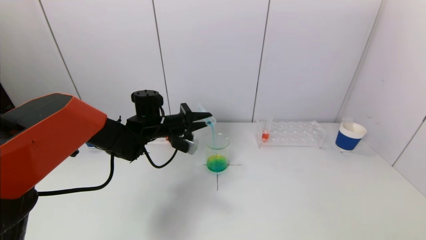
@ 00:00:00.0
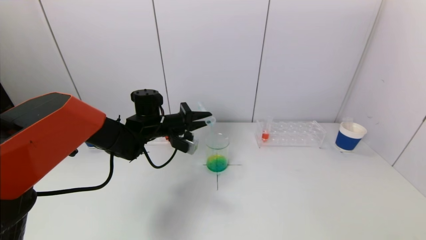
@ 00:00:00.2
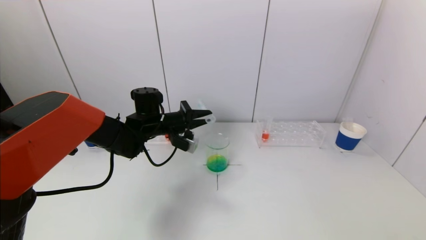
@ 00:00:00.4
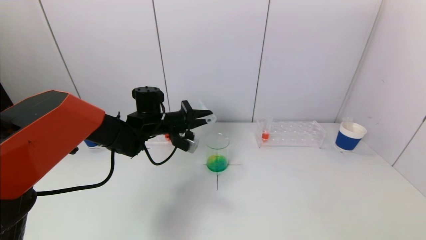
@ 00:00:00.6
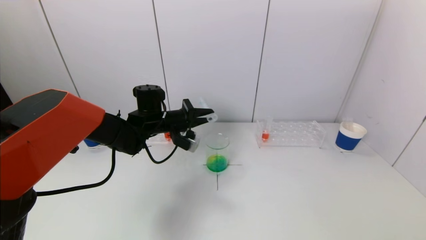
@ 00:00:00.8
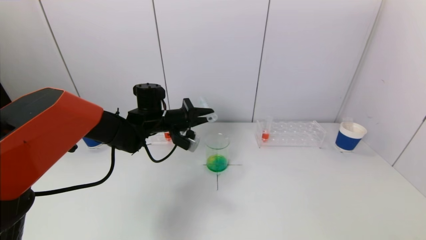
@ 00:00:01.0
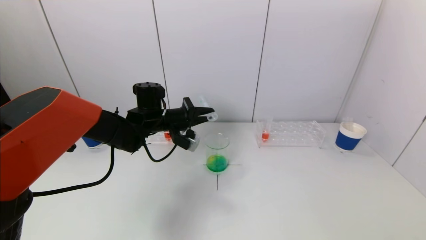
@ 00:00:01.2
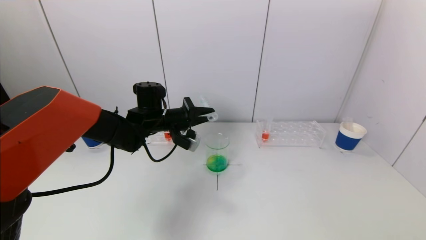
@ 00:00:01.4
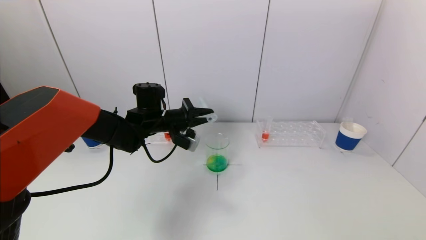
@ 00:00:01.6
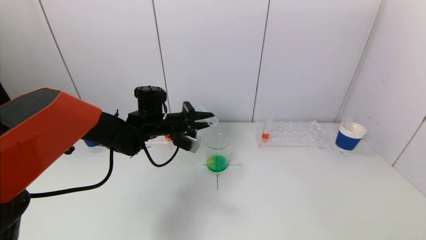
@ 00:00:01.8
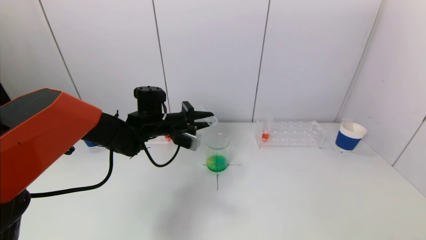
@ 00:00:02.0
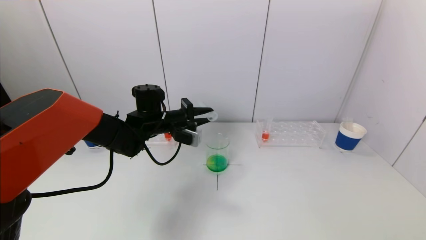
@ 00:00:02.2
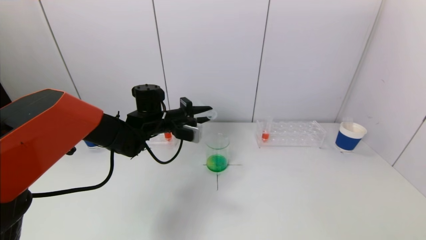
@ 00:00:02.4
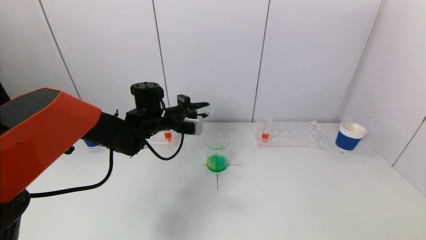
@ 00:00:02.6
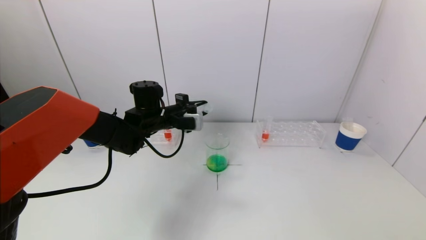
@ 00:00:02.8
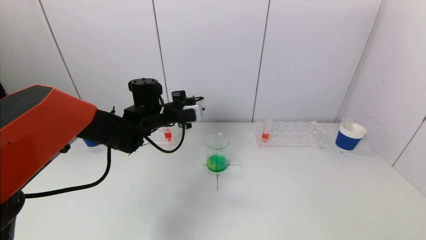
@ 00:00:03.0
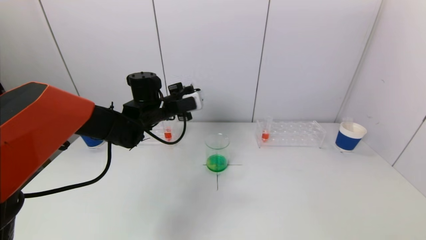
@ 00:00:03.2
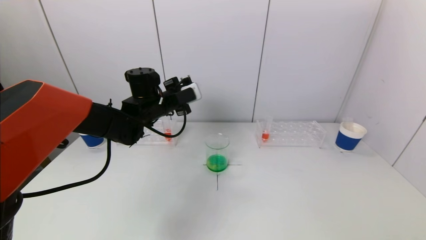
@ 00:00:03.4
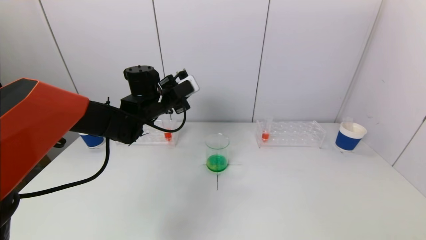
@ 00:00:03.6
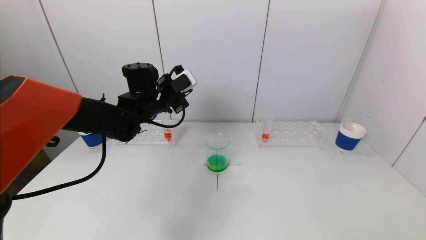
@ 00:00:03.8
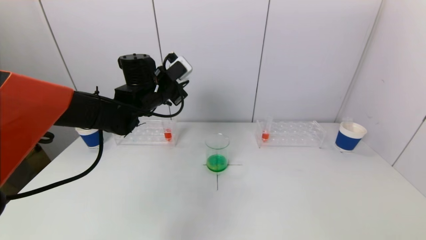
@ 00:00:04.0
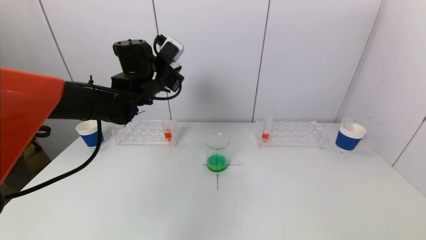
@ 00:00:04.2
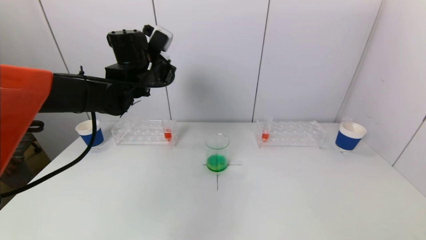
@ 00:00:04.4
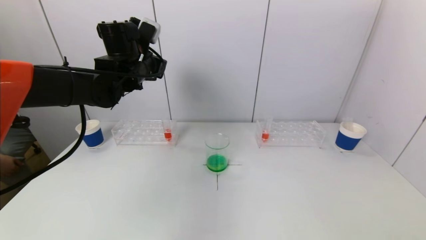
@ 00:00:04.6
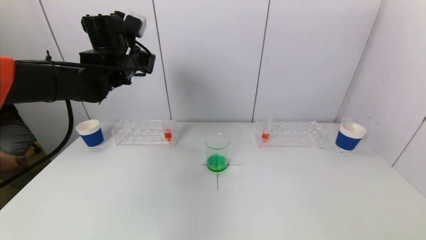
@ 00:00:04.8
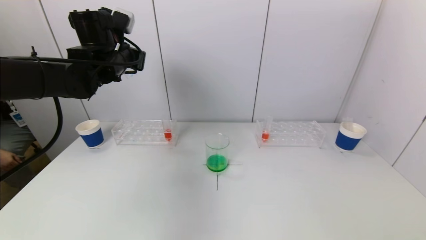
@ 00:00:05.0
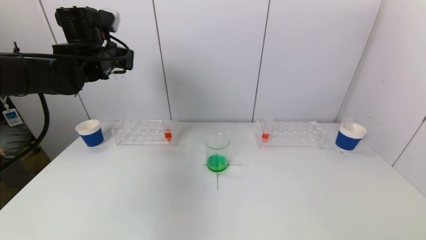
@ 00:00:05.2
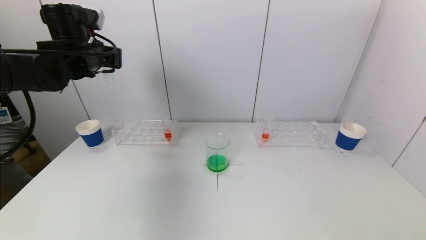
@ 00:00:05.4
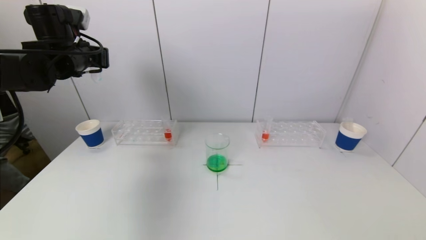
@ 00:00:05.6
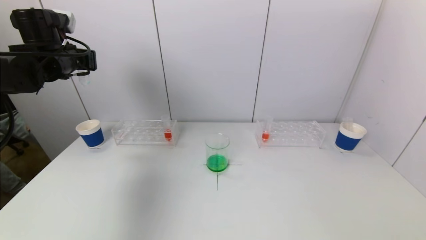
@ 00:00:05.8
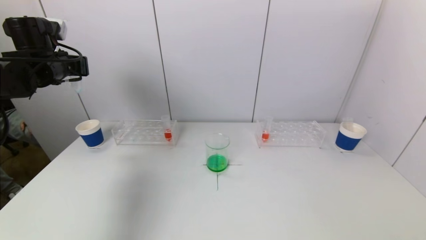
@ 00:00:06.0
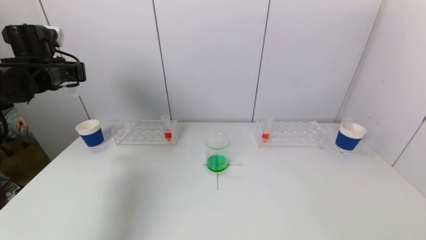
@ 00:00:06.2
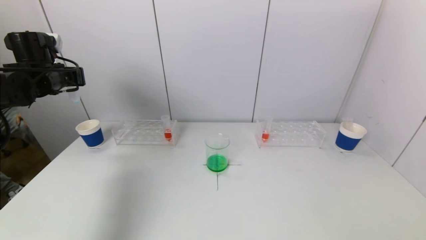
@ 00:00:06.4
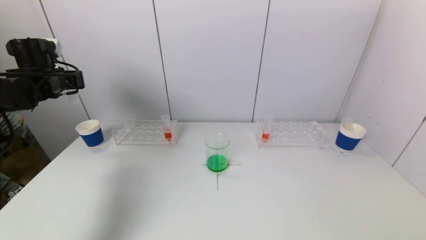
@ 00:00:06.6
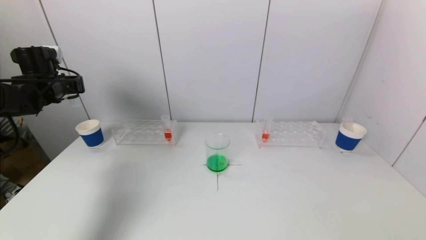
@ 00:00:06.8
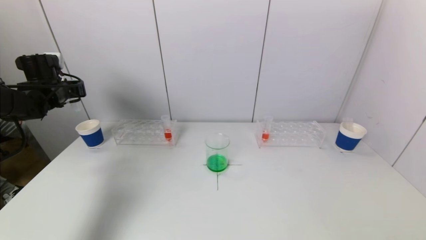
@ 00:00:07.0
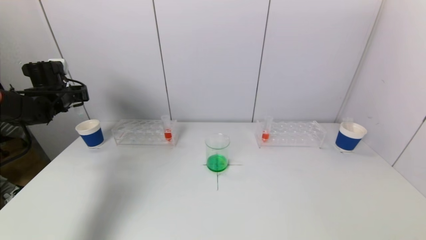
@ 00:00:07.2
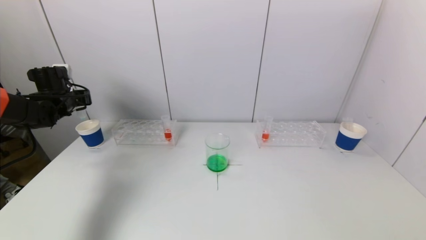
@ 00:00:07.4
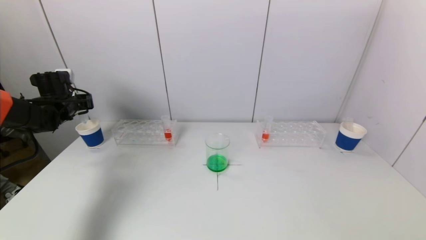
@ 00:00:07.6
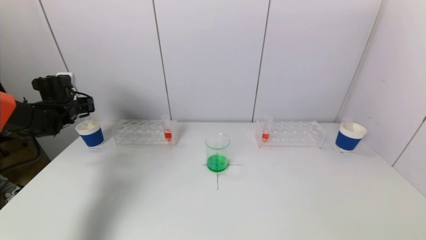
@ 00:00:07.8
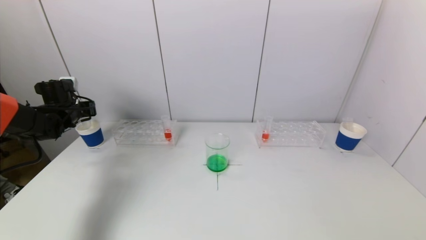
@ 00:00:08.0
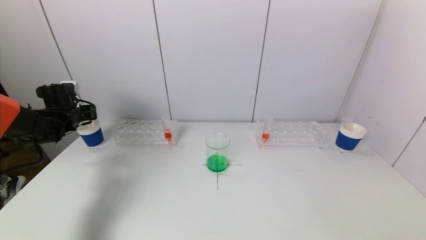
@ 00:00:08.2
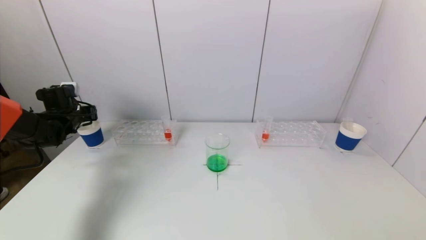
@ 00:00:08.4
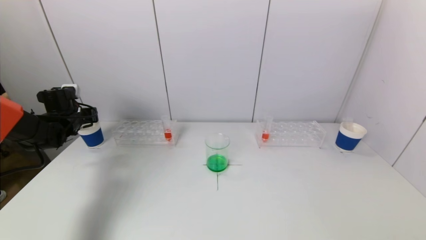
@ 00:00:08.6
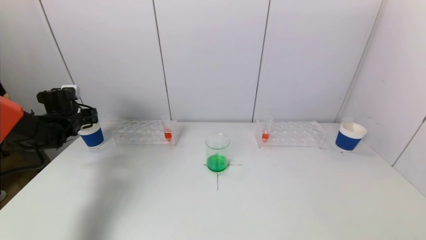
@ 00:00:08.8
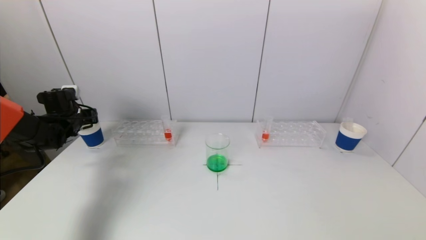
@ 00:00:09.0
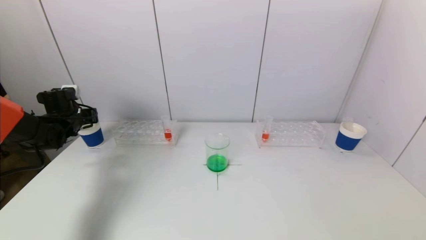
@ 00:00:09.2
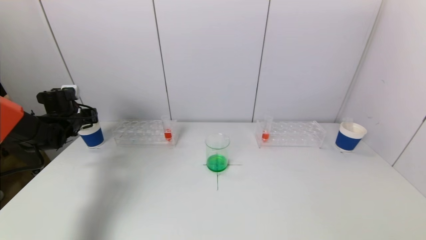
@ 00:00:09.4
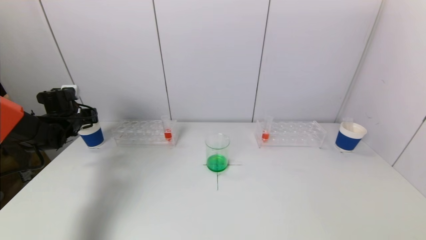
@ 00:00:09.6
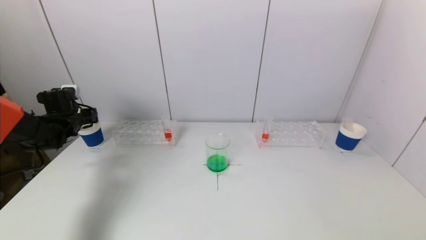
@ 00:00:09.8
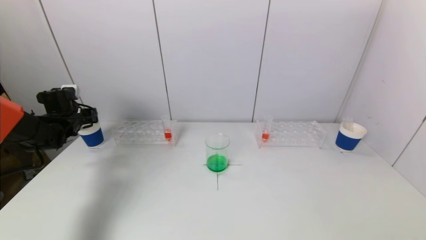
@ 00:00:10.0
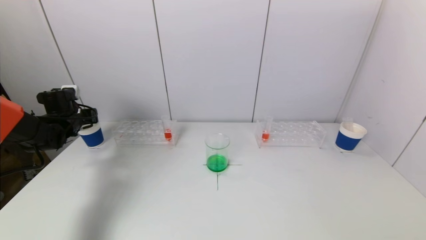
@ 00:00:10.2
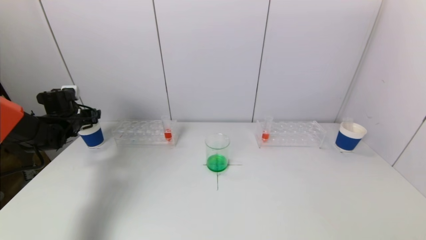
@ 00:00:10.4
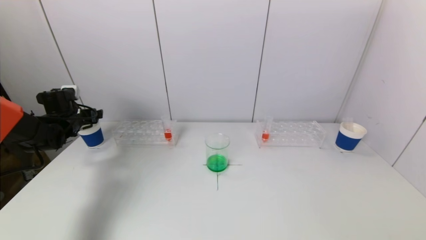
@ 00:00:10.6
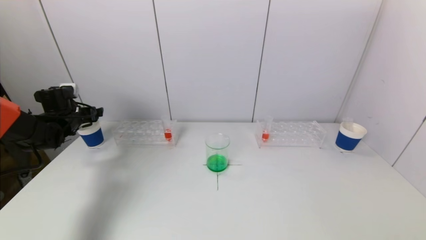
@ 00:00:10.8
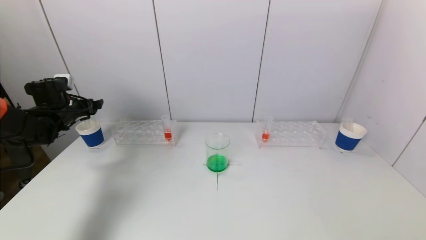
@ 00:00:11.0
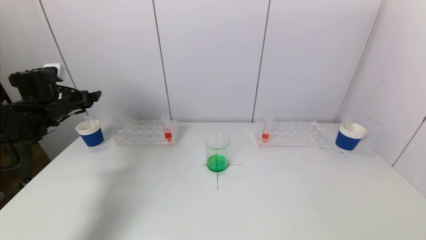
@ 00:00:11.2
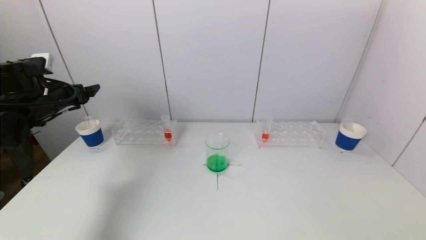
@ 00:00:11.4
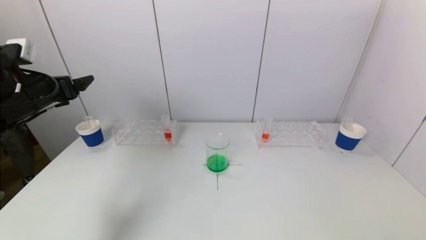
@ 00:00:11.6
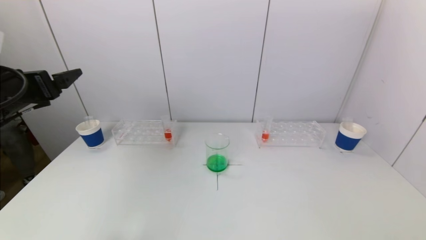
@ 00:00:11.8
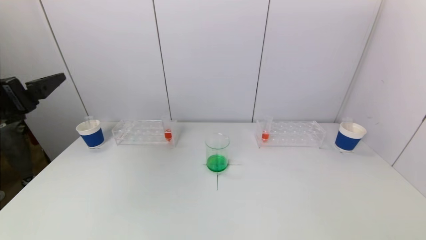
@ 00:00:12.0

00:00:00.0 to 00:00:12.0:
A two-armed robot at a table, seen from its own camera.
Task of the whole recording: pick up a test tube with pigment on left test tube rack and a test tube with pigment on right test tube rack by grippers and pour them into the beaker.
Step, 00:00:01.0 to 00:00:10.2: Place the test tube into the paper cup with the left gripper.
00:00:00.0 to 00:00:01.6: The grippers make only small movements.
00:00:03.0 to 00:00:04.4: The left gripper moves upward, some 10 cm.
00:00:04.4 to 00:00:06.0: The left gripper travels to the left by some 20 cm.
00:00:06.0 to 00:00:07.6: The left gripper moves downward, to the left and forward, approximately 15 cm.
00:00:07.6 to 00:00:09.0: The grippers stay close to where they were, moving slightly.
00:00:10.4 to 00:00:12.0: The left gripper heads backward and upward, covering about 30 cm.

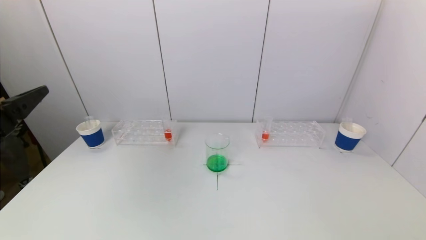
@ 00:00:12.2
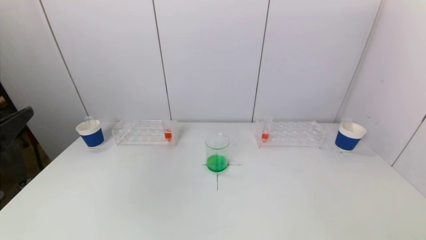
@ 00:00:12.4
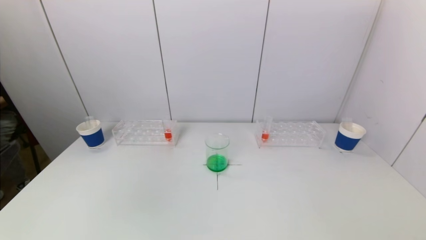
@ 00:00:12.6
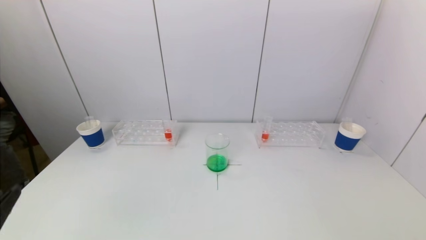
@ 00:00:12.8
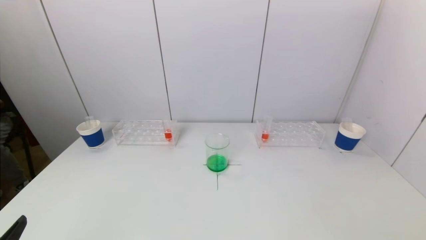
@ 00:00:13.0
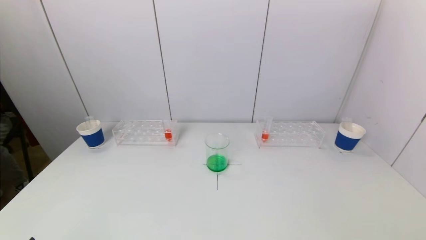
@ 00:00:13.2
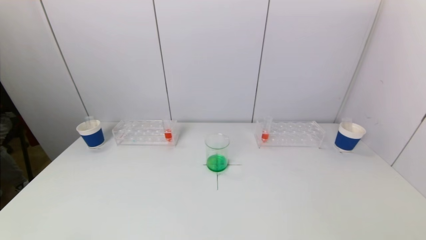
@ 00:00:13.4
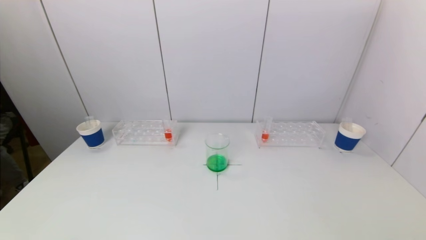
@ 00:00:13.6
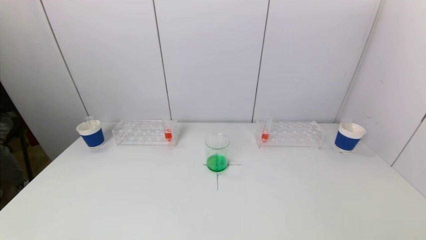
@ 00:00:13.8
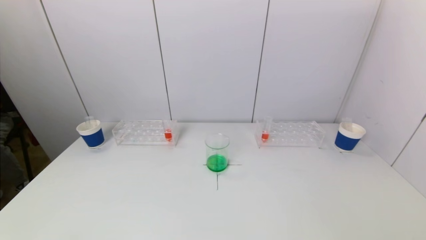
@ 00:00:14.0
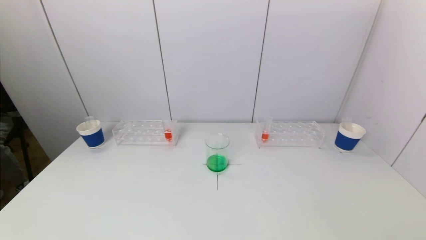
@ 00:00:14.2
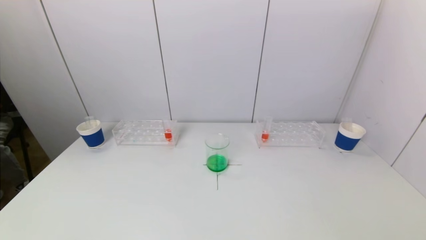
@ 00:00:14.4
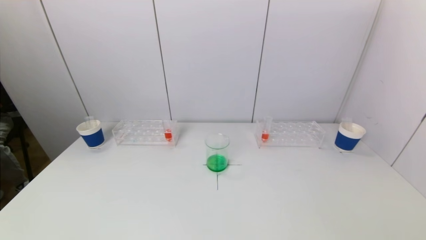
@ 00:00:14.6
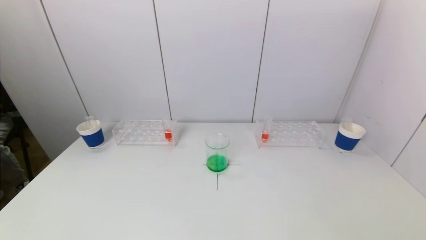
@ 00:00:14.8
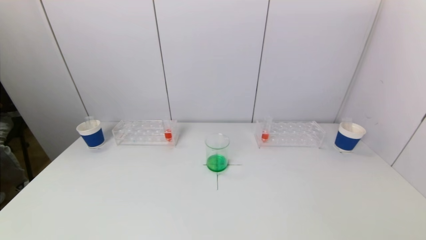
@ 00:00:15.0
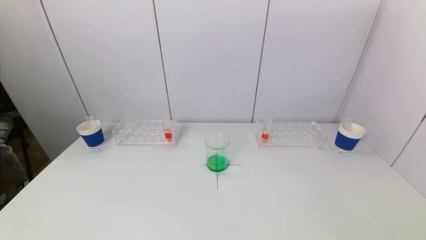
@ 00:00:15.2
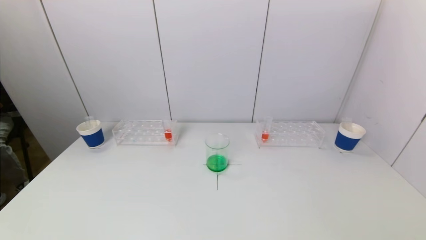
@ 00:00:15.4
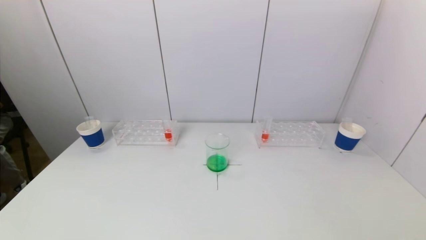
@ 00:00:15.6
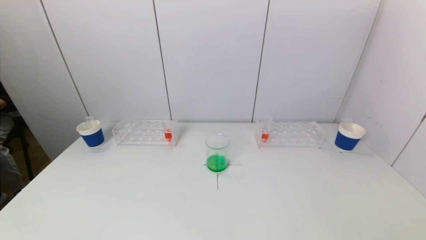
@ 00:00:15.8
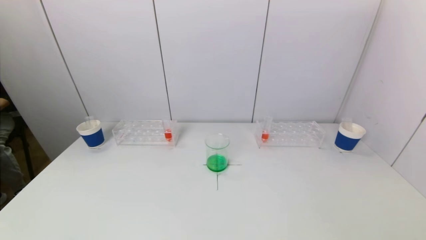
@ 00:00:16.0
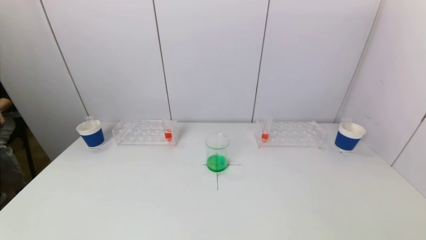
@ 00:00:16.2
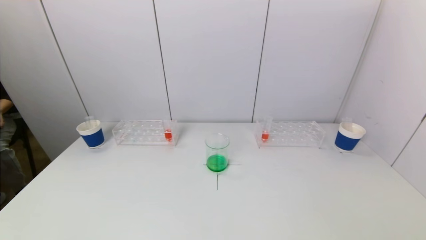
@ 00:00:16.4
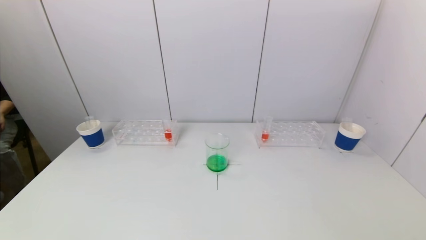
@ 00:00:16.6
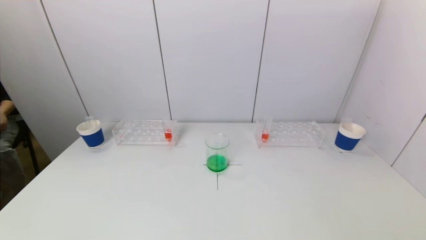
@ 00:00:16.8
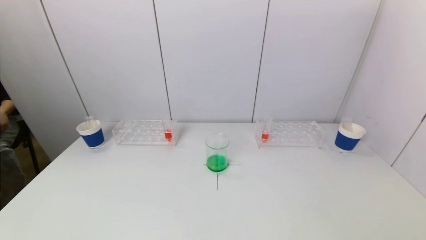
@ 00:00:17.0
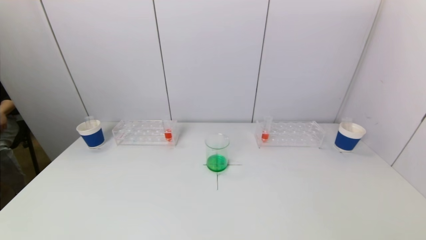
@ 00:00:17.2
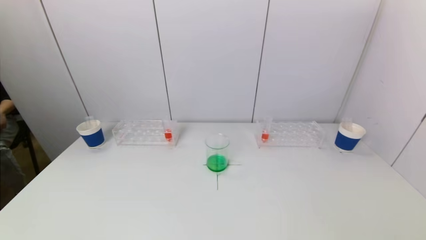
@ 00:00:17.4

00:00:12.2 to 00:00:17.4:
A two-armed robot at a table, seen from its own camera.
Task of the whole recording: pick up a test tube with pigment on left test tube rack and a test tube with pigment on right test tube rack by grippers and pour them into the beaker.
00:00:12.2 to 00:00:14.0: The left gripper is displaced downward and backward by some 25 cm.
00:00:14.0 to 00:00:17.4: Both grippers stay put.
